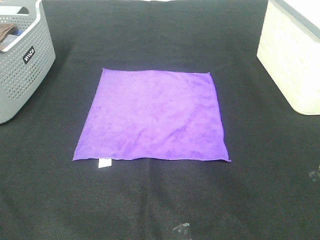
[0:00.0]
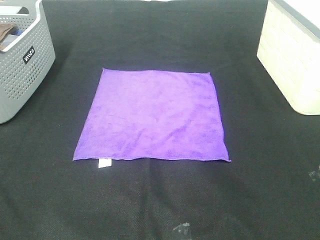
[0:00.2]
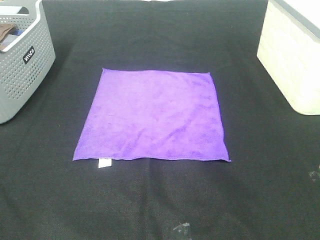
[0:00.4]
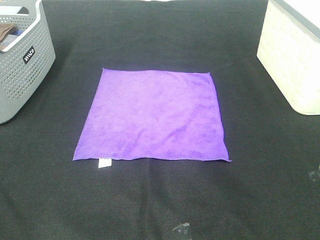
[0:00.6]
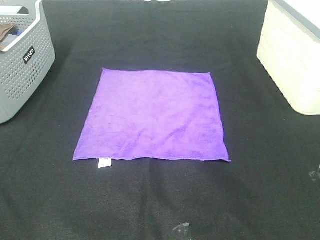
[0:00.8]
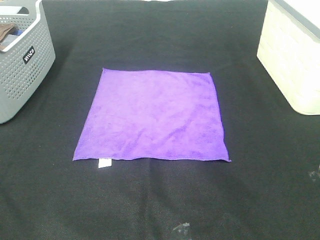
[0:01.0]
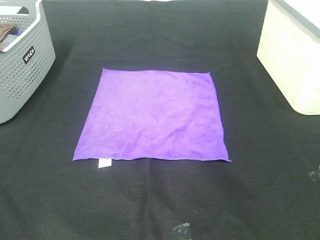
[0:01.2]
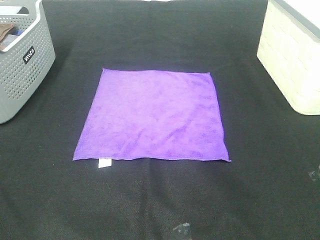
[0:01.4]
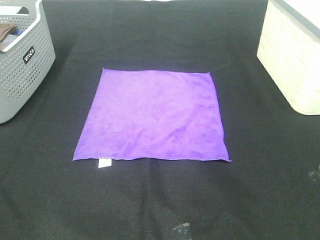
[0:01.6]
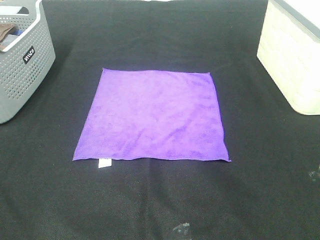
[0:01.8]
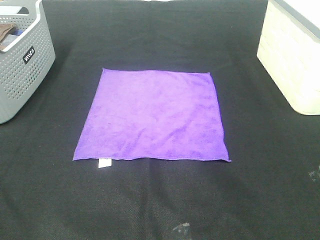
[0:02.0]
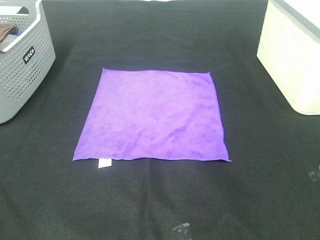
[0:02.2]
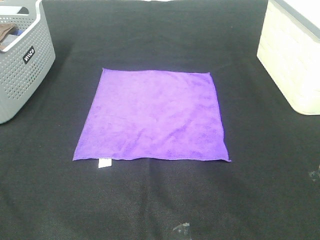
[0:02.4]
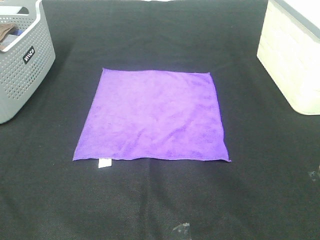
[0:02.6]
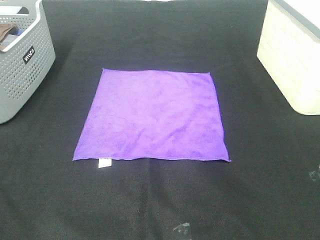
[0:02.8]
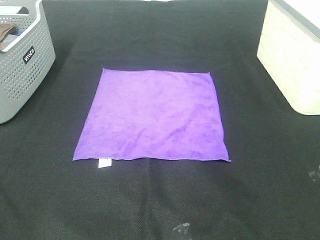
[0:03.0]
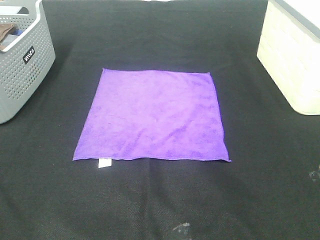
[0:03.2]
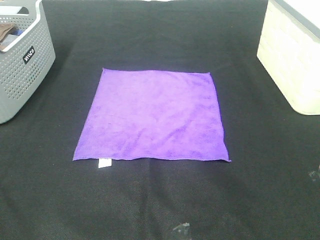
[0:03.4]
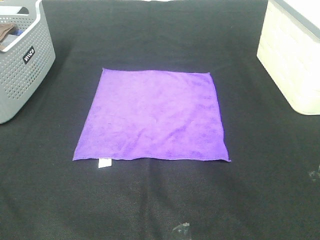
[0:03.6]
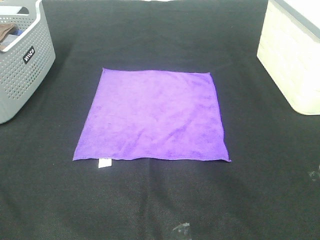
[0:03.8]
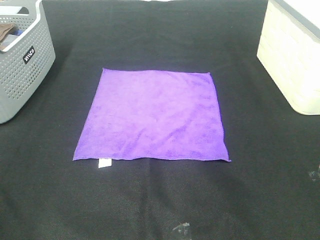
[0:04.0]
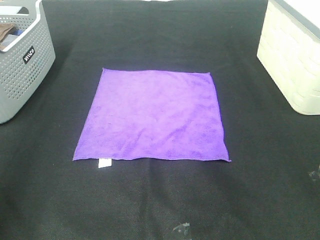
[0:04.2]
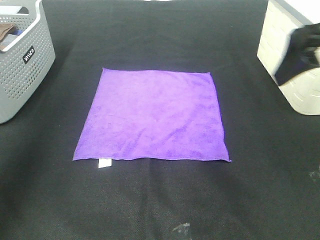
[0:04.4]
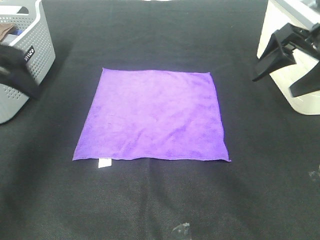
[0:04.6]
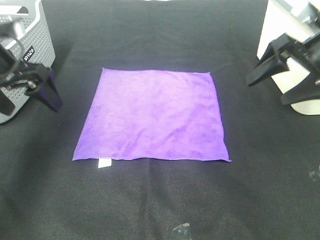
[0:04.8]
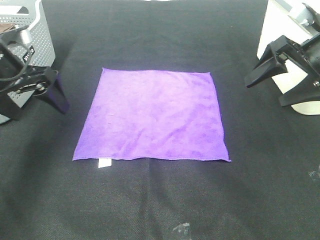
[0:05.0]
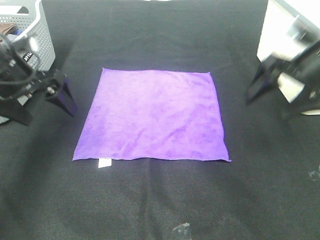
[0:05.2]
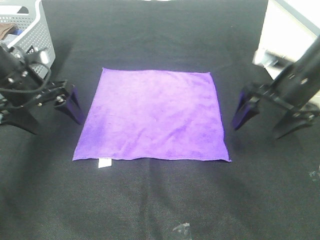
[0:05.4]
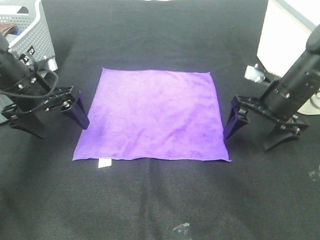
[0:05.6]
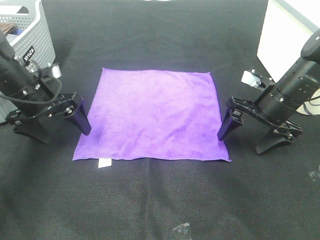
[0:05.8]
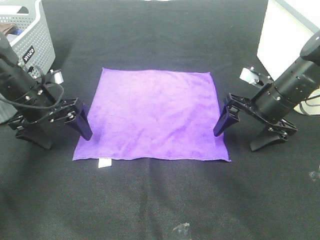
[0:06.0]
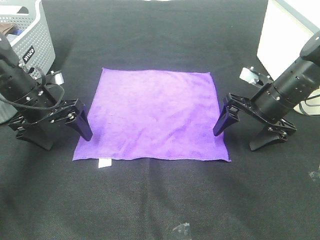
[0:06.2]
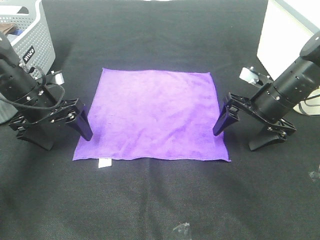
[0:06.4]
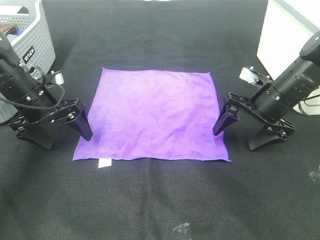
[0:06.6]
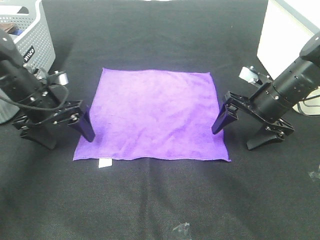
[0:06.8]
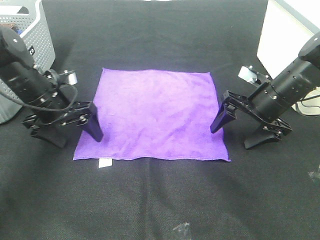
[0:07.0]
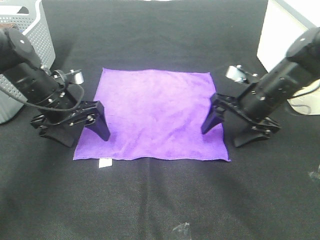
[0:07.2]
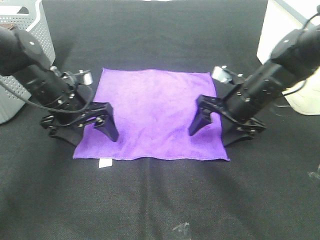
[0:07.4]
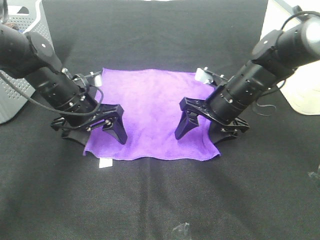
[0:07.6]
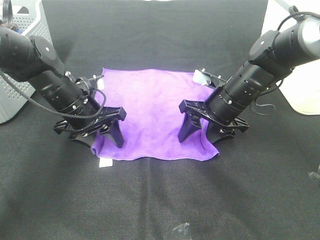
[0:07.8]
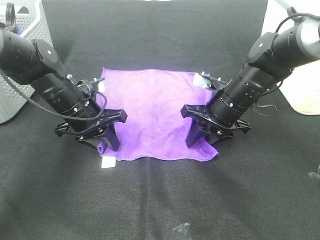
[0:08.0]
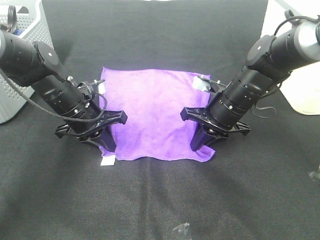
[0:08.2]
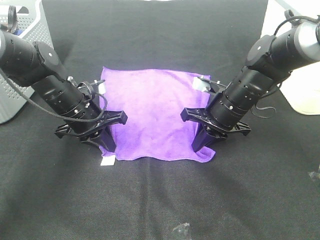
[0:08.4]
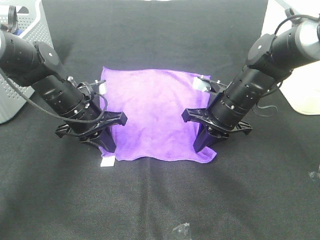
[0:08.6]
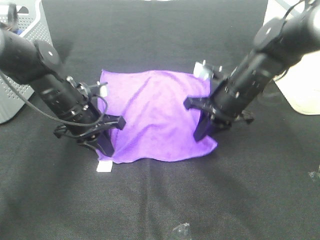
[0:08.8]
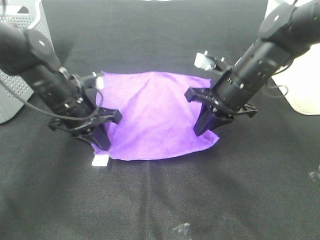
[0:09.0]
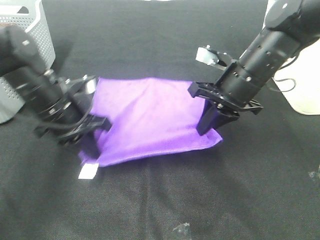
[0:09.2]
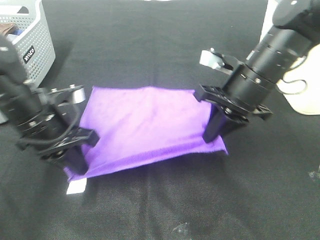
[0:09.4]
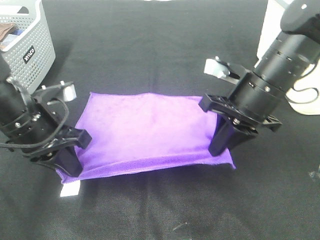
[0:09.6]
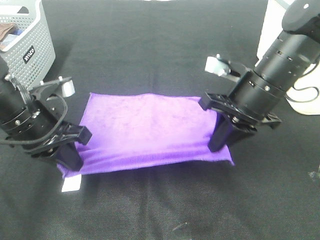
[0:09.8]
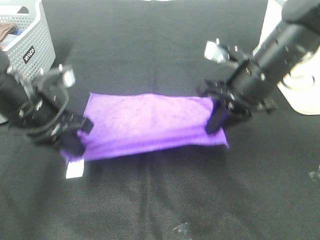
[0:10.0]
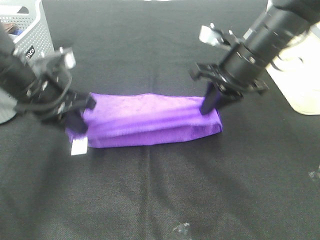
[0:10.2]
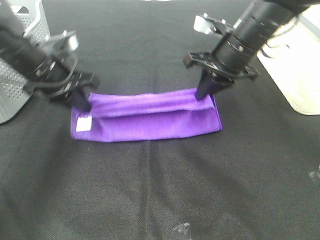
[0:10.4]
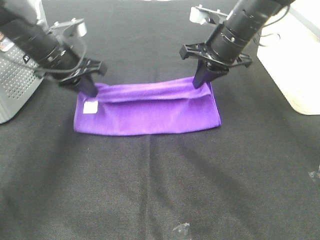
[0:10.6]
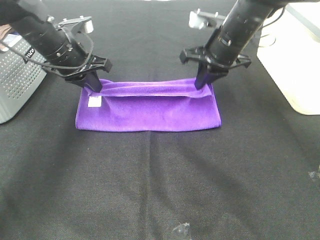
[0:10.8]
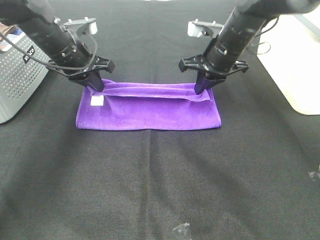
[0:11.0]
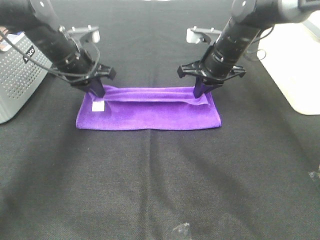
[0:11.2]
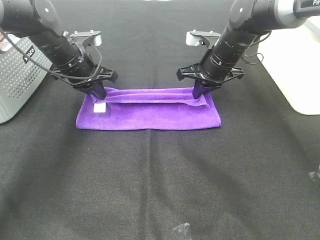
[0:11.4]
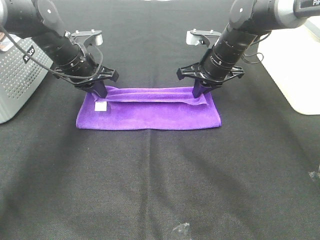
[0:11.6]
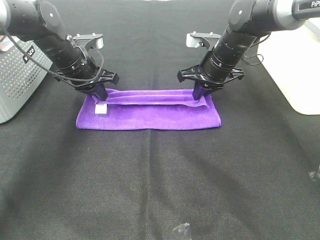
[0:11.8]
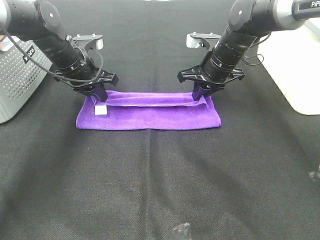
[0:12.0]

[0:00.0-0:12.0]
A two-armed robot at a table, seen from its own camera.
Task of the whole recording: Fold towels.
Step, 0:00.0 to 0:08.2: Left hand: grab the bottom left corner of purple towel.
Step, 0:00.0 to 0:08.2: Right hand: grab the bottom right corner of purple towel.
Step, 0:08.4 to 0:11.6: Left hand: fold the purple towel up.
Step, 0:08.4 to 0:11.6: Right hand: fold the purple towel up.
0:00.0 to 0:03.0: Both grippers stay about where they are.
0:03.0 to 0:04.4: The two grippers go roughly 25 cm forward.
0:04.4 to 0:06.0: The left gripper heads downward and forward, covering some 25 cm; the right gripper moves downward, approximately 20 cm.
0:06.0 to 0:07.6: The right gripper travels to the left by roughly 10 cm. The left gripper goes about 10 cm to the right.
0:07.6 to 0:09.0: The right gripper is displaced upward by some 5 cm, and closes. The left gripper closes up.
0:09.0 to 0:10.4: The left gripper shifts roughly 5 cm upward, and goes backward and returns, about 10 cm each way. The right gripper heads forward, covering some 5 cm.
0:10.4 to 0:12.0: The left gripper moves forward, approximately 10 cm. The right gripper is displaced downward and forward by some 10 cm.

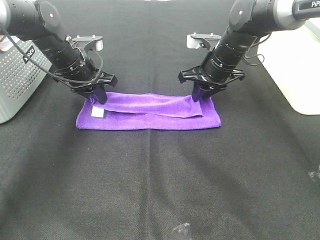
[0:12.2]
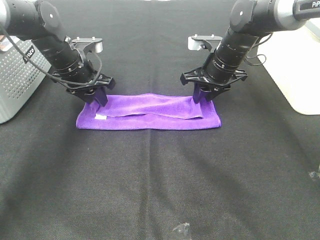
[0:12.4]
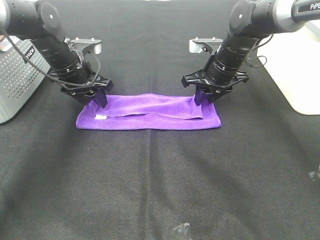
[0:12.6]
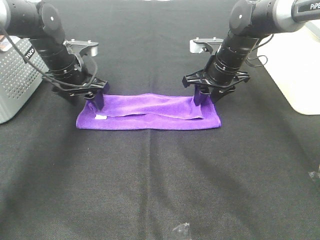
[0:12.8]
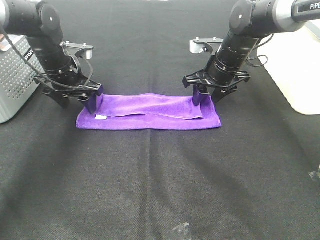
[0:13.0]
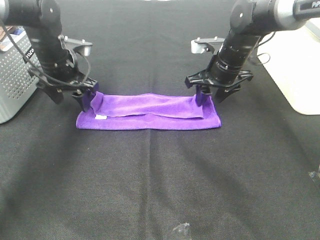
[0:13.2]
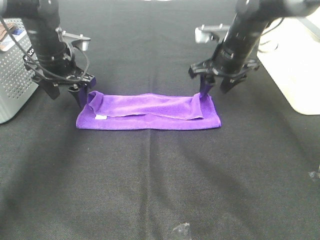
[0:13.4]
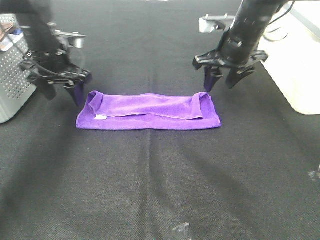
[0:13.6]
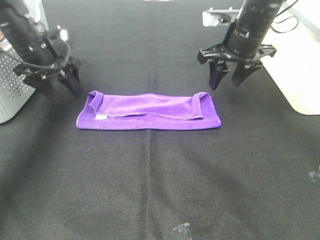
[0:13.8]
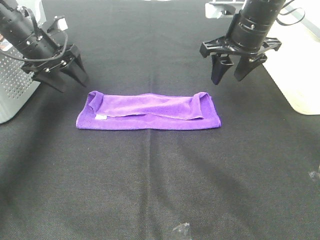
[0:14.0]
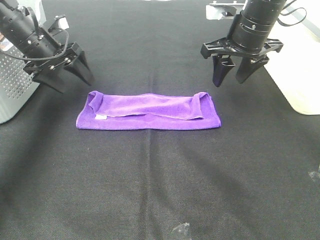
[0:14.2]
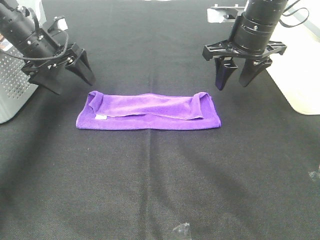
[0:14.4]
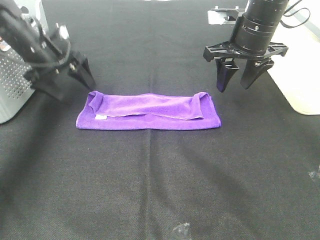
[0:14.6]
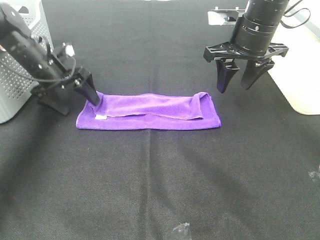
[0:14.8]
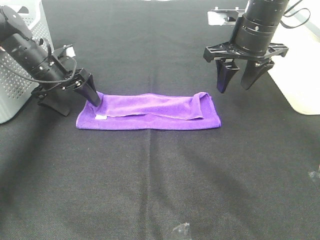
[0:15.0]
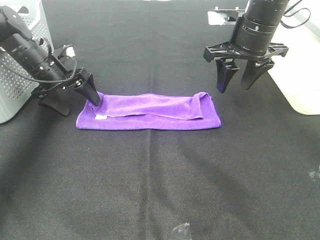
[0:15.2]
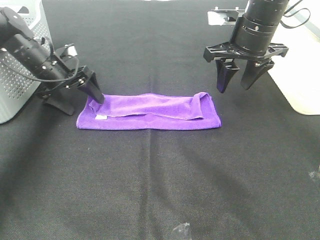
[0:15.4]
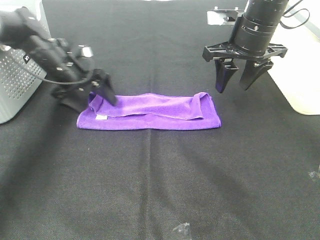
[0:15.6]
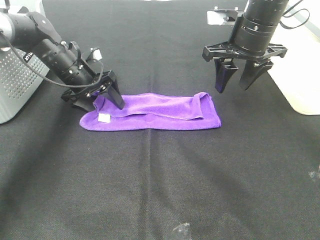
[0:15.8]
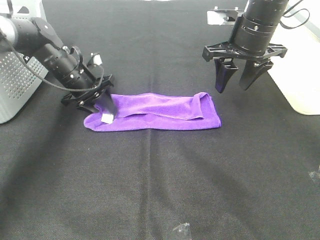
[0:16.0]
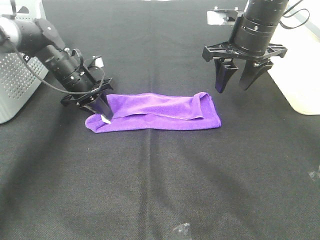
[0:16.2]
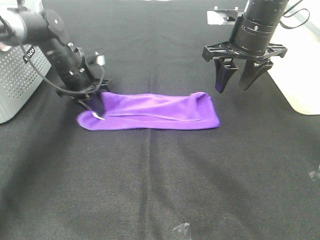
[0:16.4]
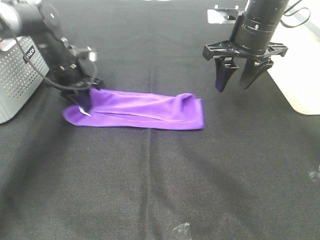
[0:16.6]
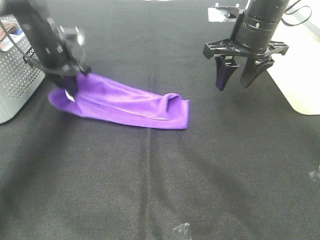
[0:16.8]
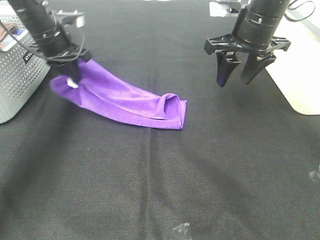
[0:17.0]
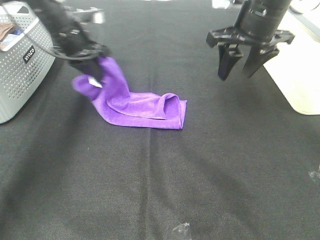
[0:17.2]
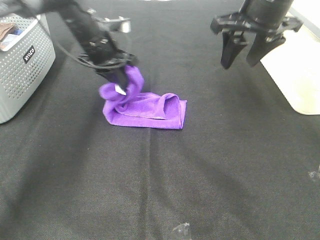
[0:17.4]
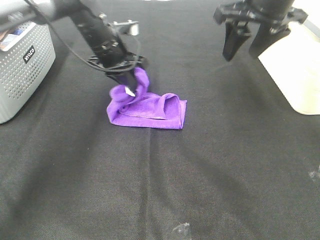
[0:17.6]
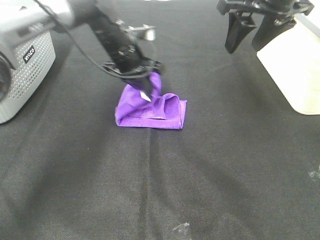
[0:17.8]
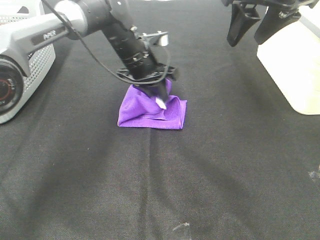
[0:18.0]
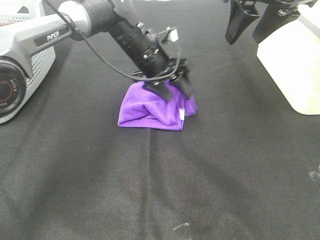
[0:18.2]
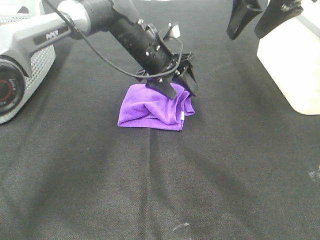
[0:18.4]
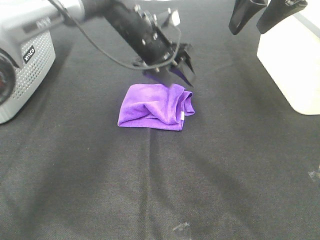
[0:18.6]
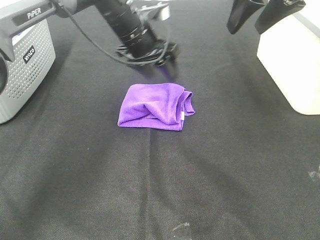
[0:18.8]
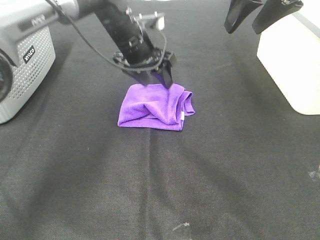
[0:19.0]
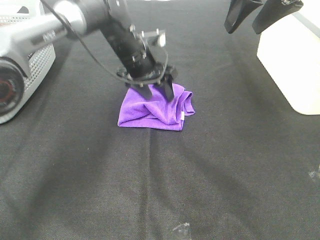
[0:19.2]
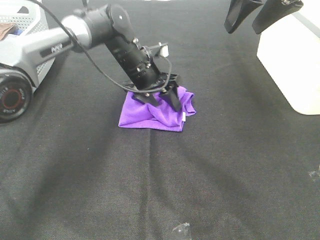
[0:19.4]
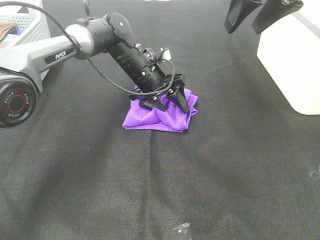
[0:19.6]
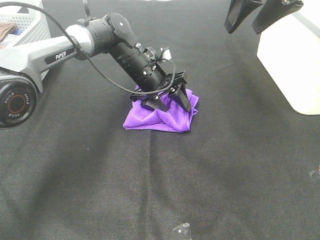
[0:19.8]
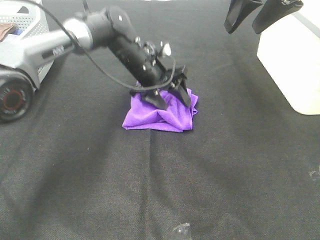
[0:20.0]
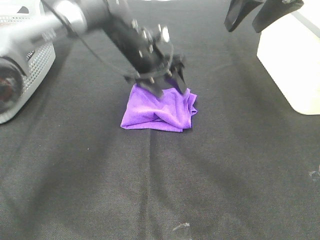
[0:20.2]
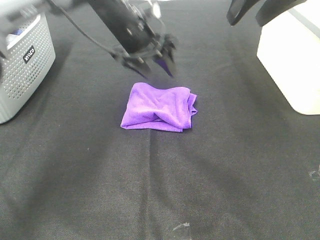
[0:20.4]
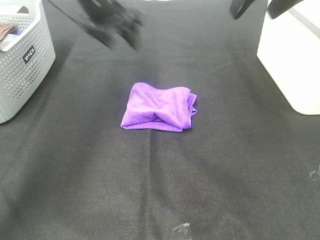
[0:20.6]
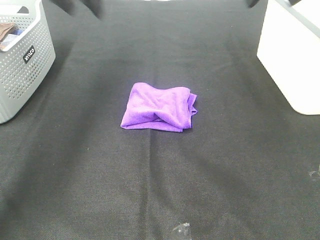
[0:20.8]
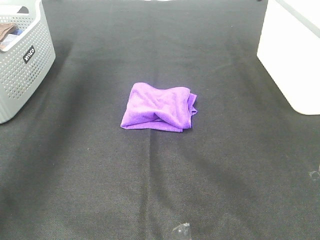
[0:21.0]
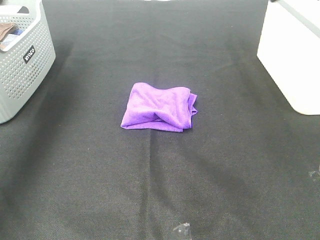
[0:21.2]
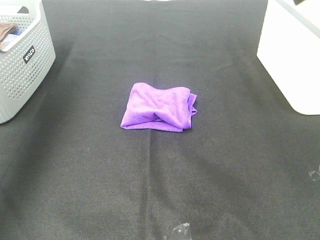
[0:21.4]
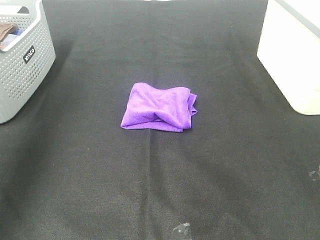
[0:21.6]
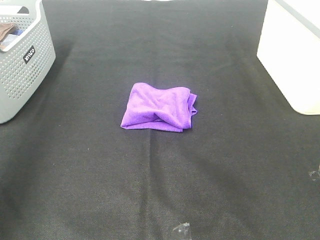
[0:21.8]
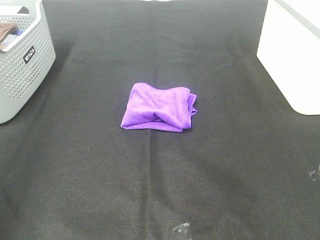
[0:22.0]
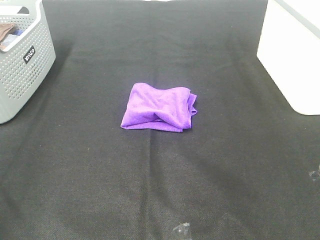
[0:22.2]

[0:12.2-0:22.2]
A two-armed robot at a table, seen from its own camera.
Task of the whole recording: Fold towels.
Step, 0:12.2 to 0:17.8: Left hand: fold the purple towel from left to right.
0:12.2 to 0:13.6: The right gripper heads upward, covering roughly 5 cm, while the left gripper shifts by approximately 5 cm, and opens up.
0:13.6 to 0:15.0: The left gripper heads downward, covering some 5 cm.
0:15.0 to 0:16.4: The left gripper shifts approximately 5 cm to the right, and closes its fingers.
0:16.4 to 0:18.0: The left gripper travels to the right by some 15 cm, and opens its fingers. Meanwhile the right gripper goes approximately 10 cm upward.
0:18.0 to 0:19.4: The grippers stay close to where they were, moving slightly.
0:19.4 to 0:20.8: The left gripper travels upward and to the left by some 25 cm. The right gripper shifts by approximately 5 cm.
0:20.8 to 0:22.2: The left gripper is displaced backward by some 40 cm.
